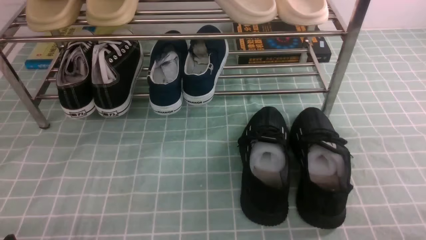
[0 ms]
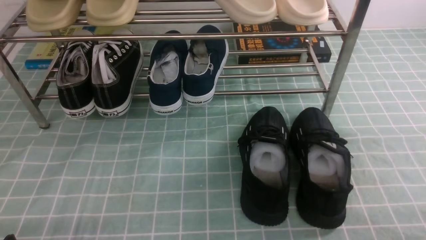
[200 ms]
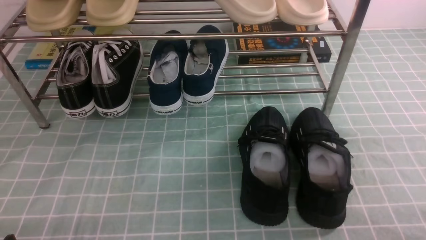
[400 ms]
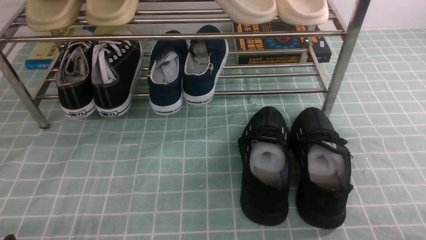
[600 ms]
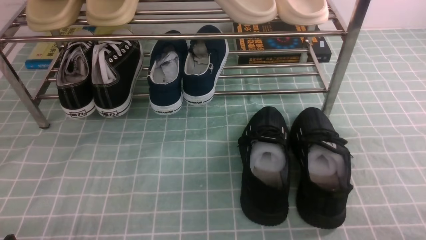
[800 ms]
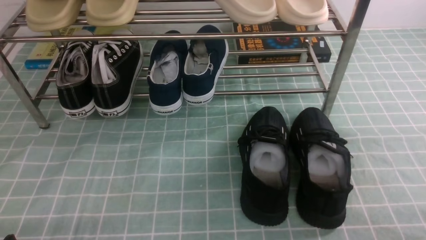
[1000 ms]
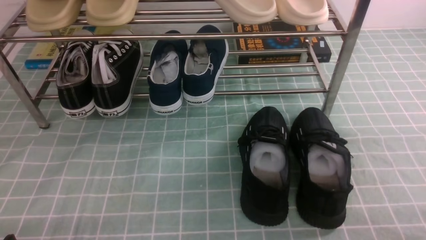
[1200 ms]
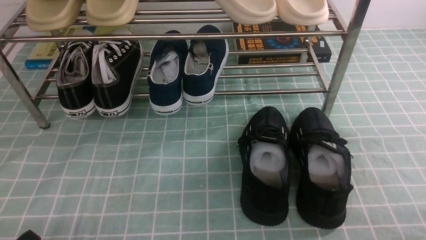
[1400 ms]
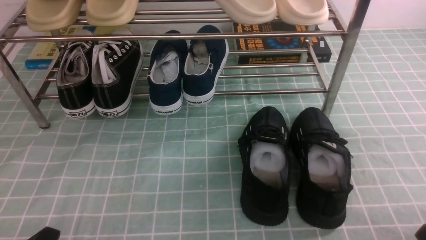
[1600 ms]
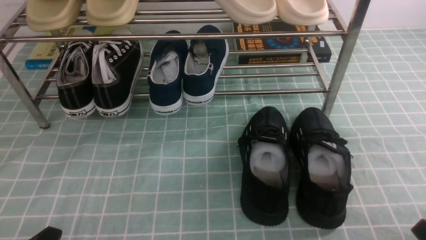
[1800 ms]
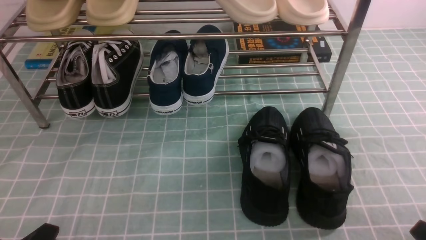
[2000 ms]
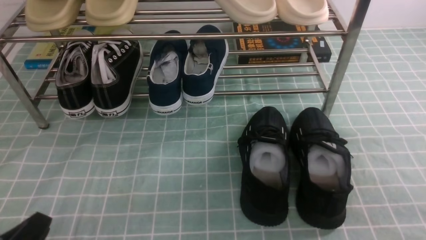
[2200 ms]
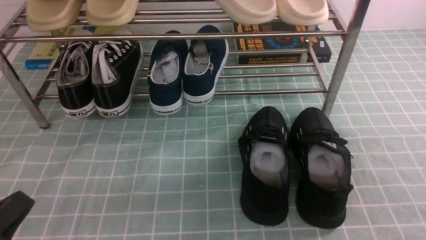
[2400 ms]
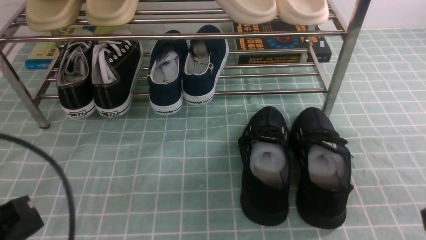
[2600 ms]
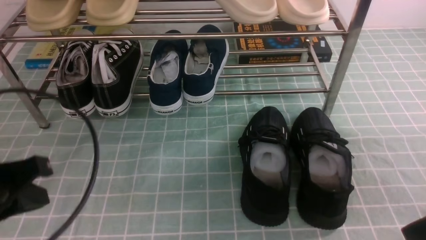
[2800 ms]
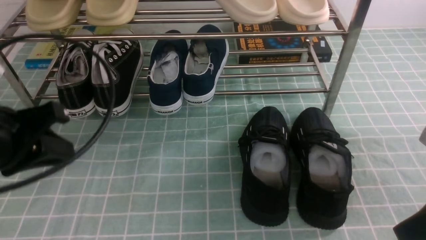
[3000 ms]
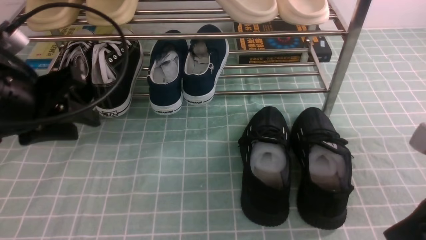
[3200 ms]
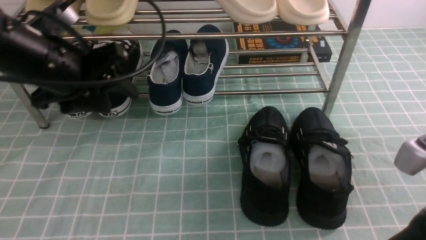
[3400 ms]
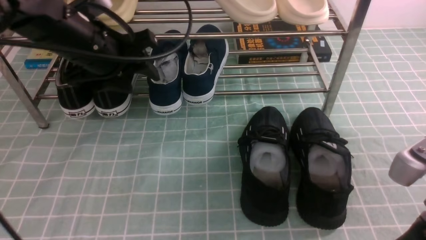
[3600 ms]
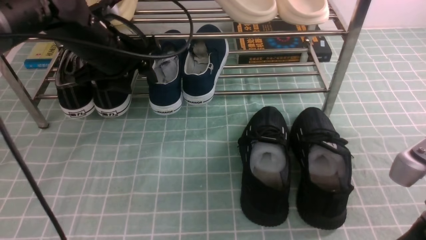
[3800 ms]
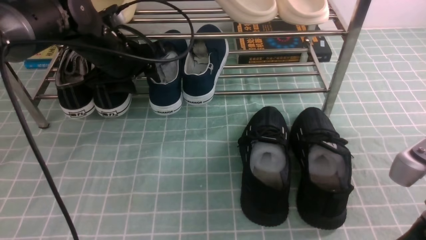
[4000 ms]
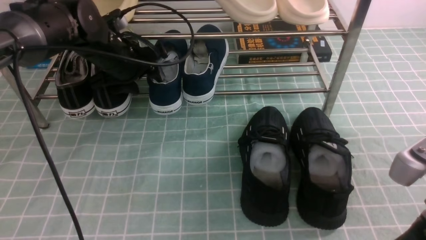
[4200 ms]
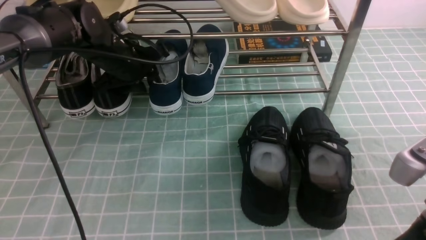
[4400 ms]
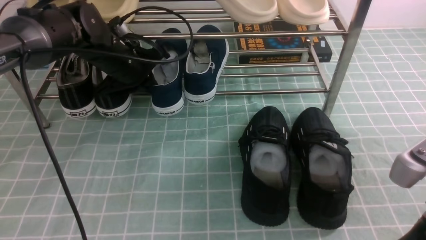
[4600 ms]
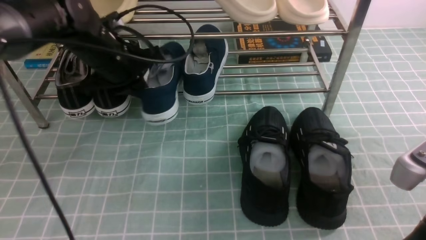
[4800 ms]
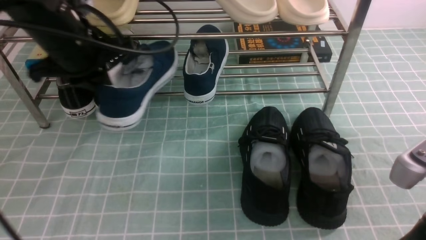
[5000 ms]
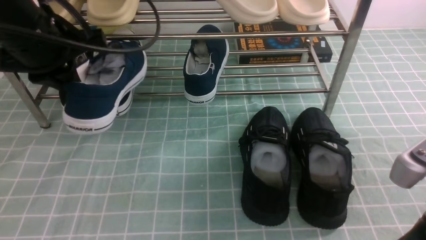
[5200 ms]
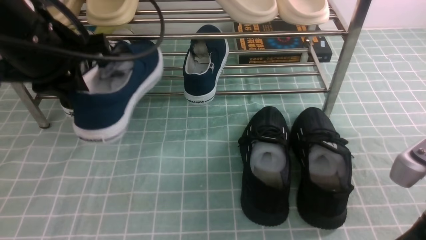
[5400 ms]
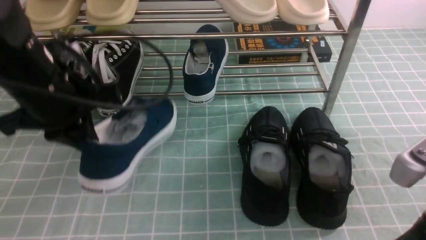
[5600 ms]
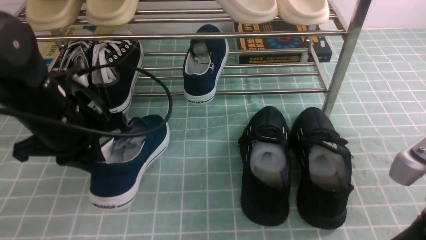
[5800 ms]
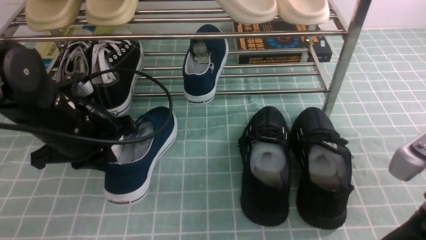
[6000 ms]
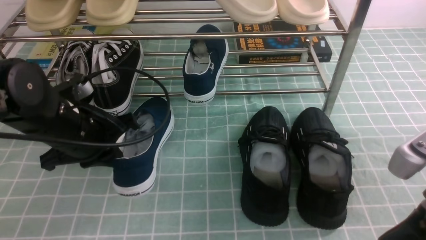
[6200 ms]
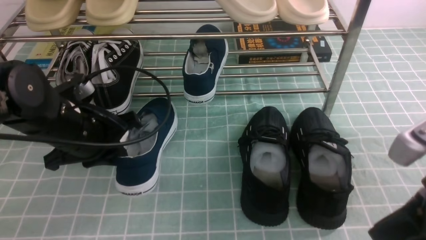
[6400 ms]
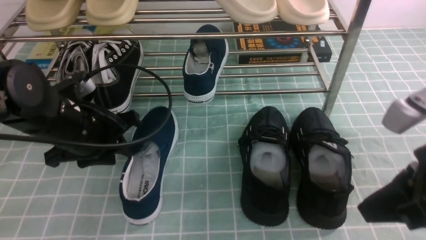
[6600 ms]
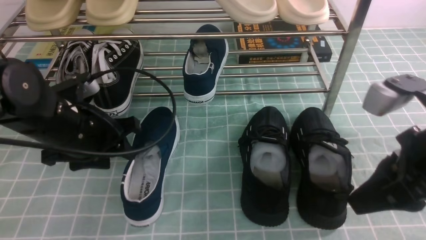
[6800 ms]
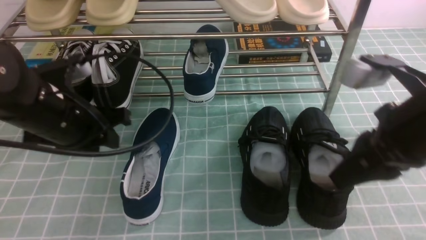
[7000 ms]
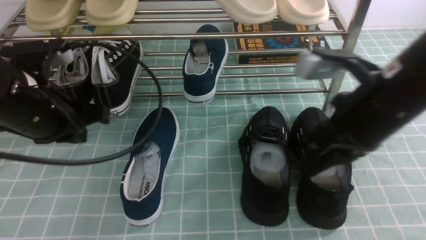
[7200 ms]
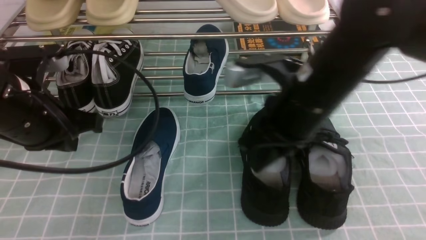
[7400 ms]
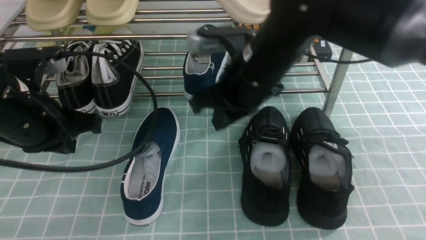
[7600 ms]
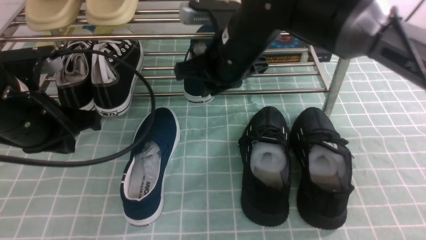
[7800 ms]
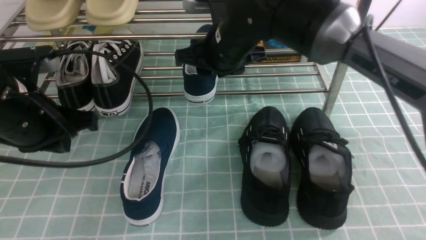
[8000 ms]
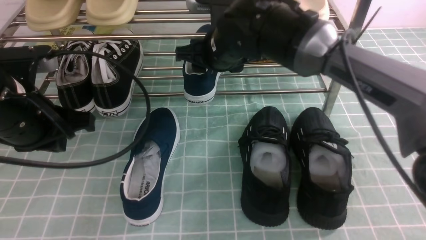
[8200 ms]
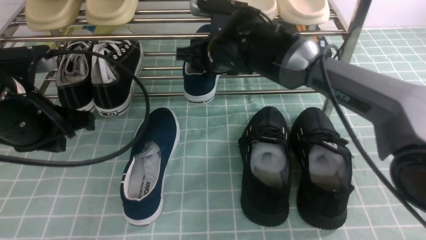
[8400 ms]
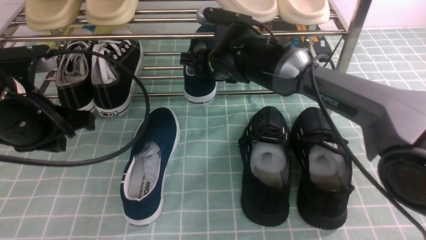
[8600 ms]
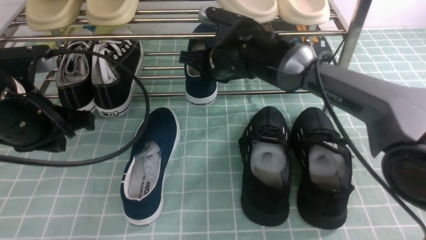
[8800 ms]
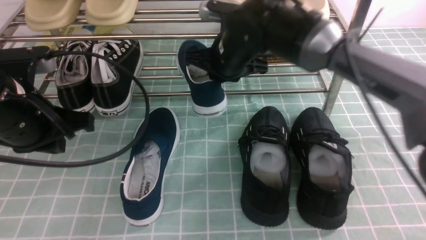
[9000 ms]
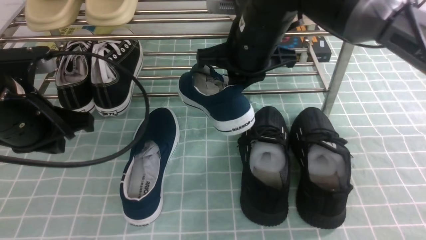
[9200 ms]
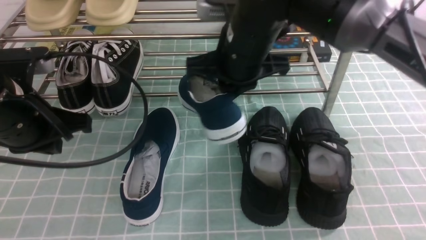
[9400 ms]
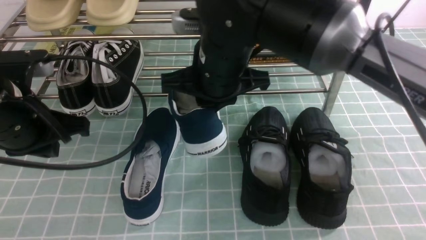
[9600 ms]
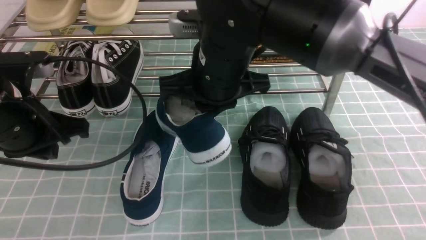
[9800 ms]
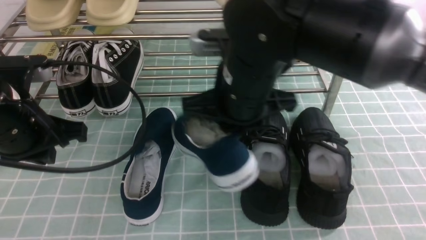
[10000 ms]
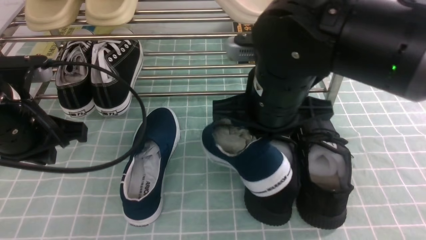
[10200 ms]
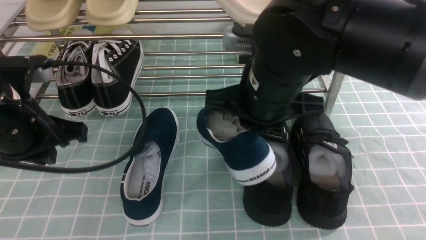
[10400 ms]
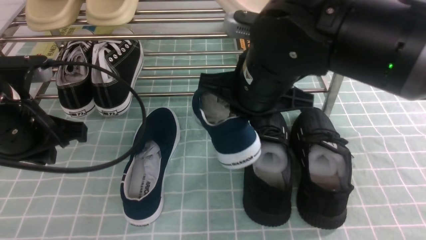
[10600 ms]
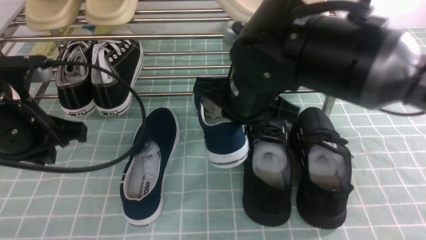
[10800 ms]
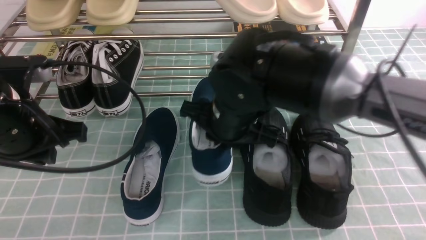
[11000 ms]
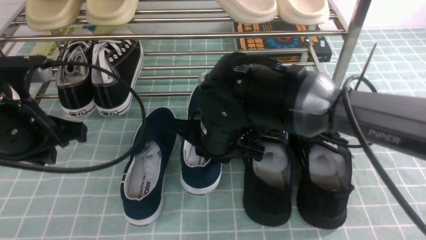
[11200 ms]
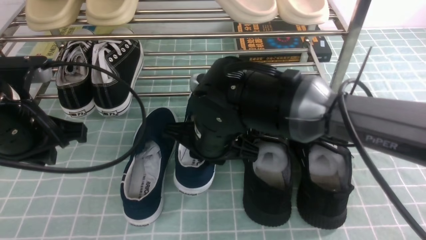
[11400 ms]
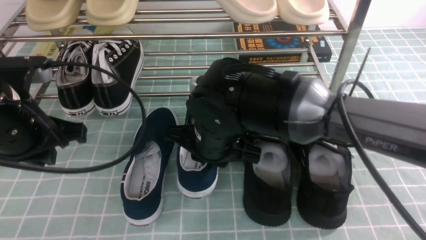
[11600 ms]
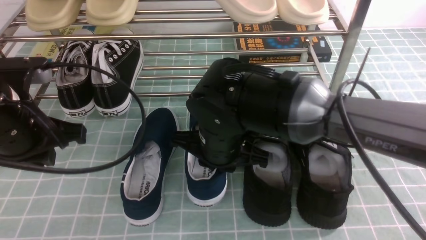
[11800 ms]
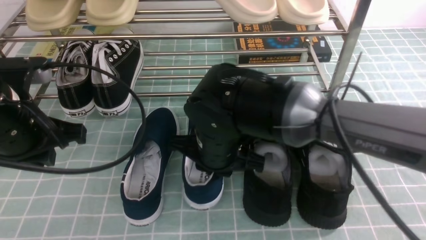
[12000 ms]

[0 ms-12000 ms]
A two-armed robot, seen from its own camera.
Step, 0 ms to 4600 ms: use the left arm to clamp a shoe in the middle of the shoe rack.
Step, 4800 ms to 6800 ms: Use your left arm to remove the clamped shoe from the shoe rack and put it down.
Step, 7000 ms to 8600 ms: use the right arm to clamp a shoe in the middle of the shoe rack.
1600 ms to 3000 ms: The grippers both shift upward and forward by some 20 cm. The right gripper closes up, while the left gripper closes and opens again.
3000 ms to 4400 ms: The left gripper shifts some 25 cm forward, and opens and closes again.
4400 ms to 6000 ms: The left gripper goes about 15 cm backward, and closes up.
6000 ms to 7600 ms: The right gripper moves to the left and forward, roughly 25 cm; the left gripper is displaced upward by some 5 cm, and opens, then closes again.
7600 ms to 9000 ms: The right gripper shifts roughly 10 cm forward, and opens, then closes once more.
9000 ms to 10400 ms: The right gripper goes approximately 15 cm backward.
10400 ms to 12000 ms: The right gripper shifts approximately 10 cm downward and to the left.

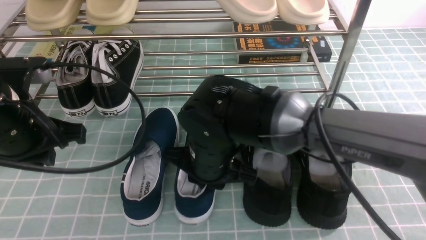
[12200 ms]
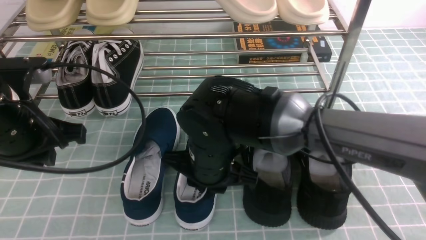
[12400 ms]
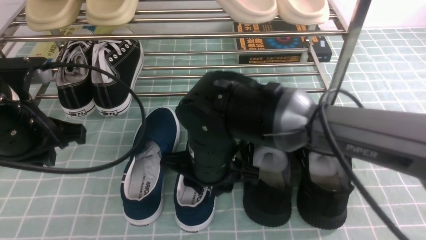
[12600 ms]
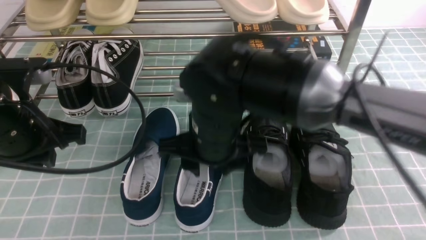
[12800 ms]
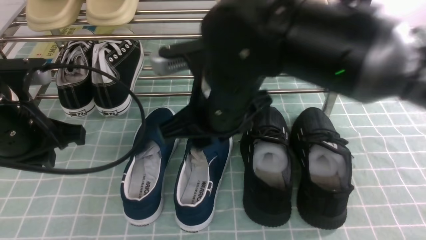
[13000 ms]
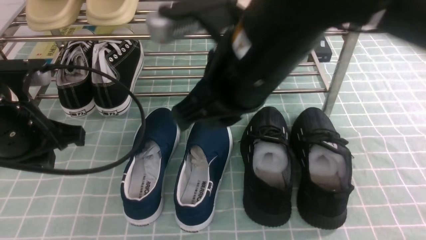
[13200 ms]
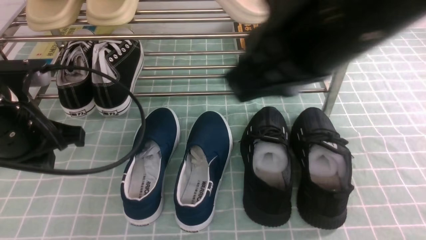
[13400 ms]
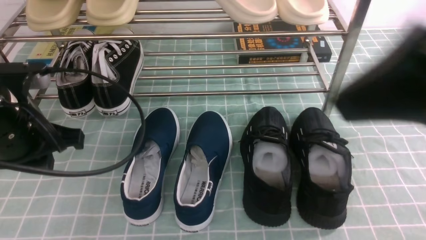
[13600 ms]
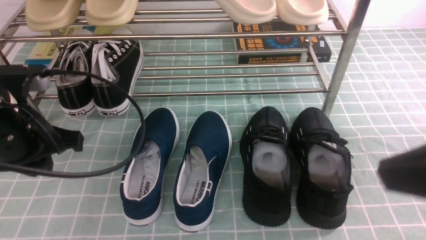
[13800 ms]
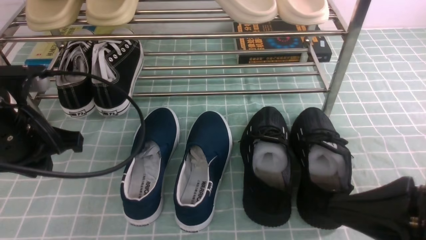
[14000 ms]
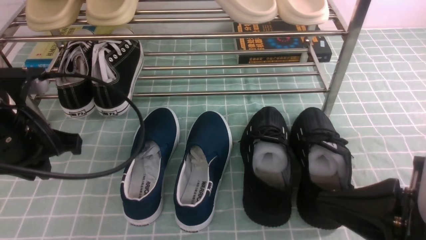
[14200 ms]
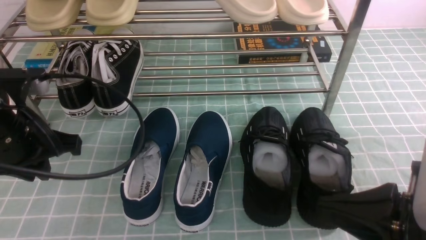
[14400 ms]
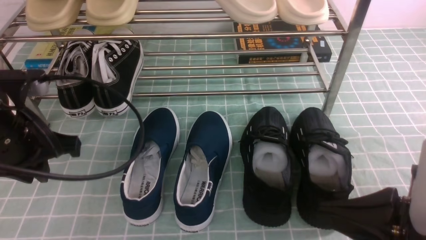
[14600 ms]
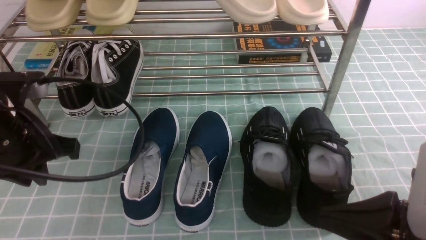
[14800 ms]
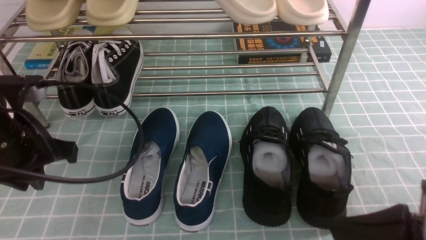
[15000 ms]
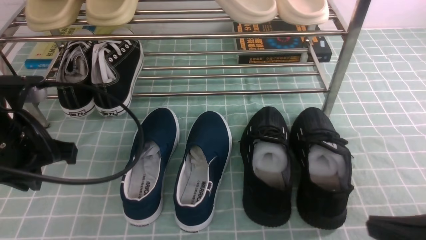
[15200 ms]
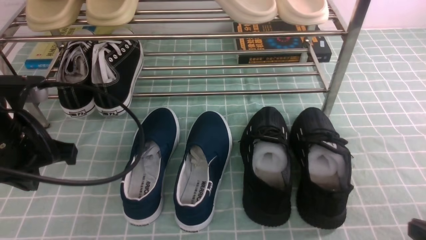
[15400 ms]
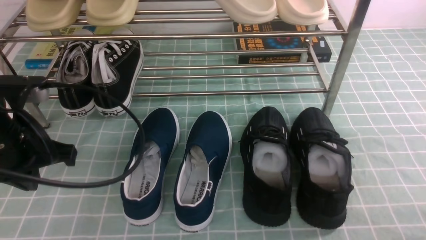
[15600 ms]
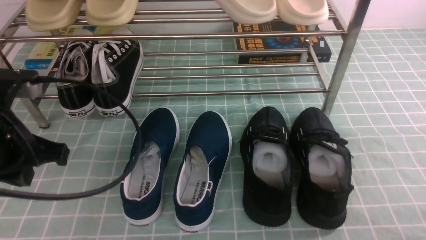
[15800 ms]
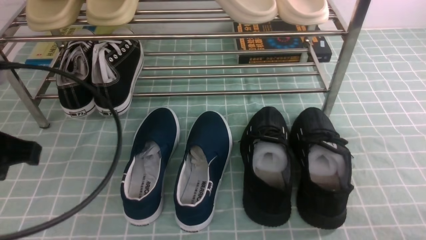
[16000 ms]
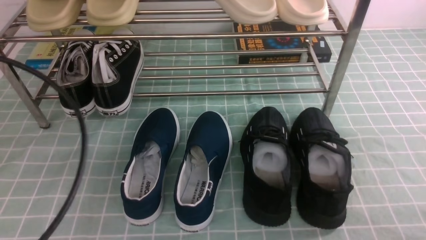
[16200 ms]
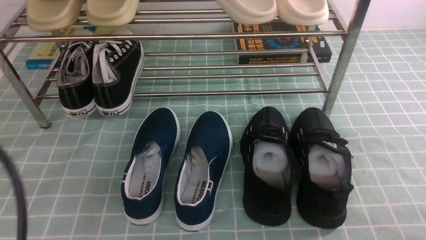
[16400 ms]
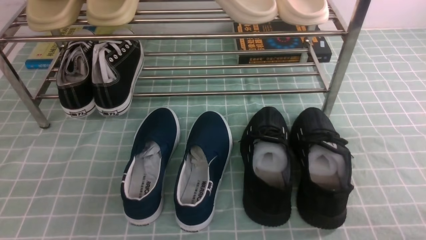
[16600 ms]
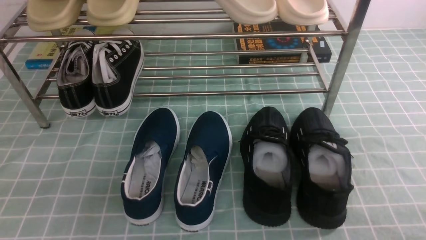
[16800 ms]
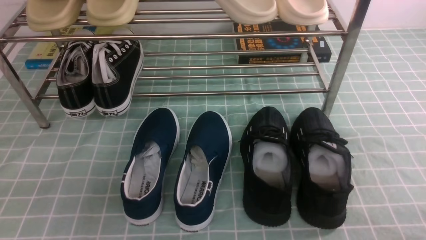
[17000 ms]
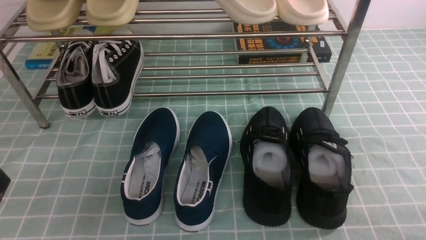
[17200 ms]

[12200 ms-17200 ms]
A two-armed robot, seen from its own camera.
12200 ms to 13800 ms: The right gripper heads to the right, upward and backward, covering roughly 35 cm, and opens, then closes once more.
13800 ms to 15600 ms: The right gripper moves downward and to the right, approximately 25 cm.
15600 ms to 17200 ms: The left gripper is displaced backward by approximately 15 cm.
